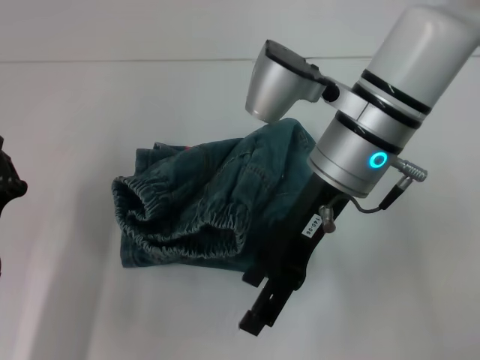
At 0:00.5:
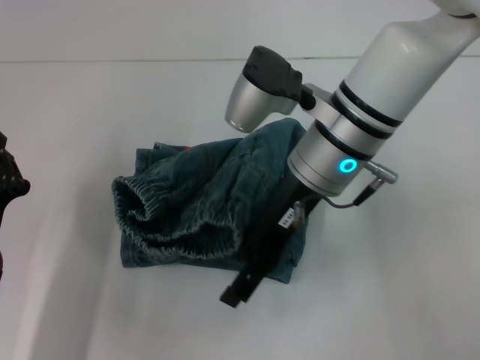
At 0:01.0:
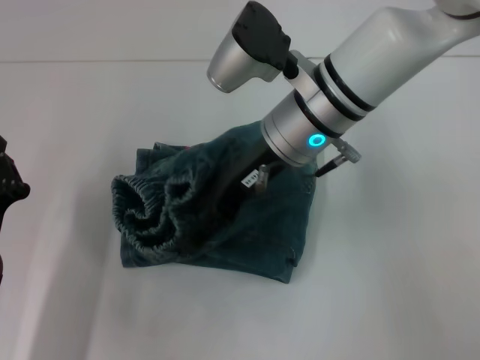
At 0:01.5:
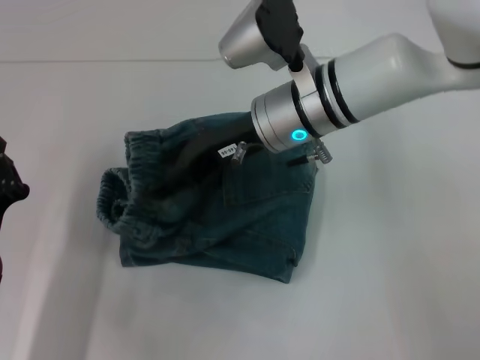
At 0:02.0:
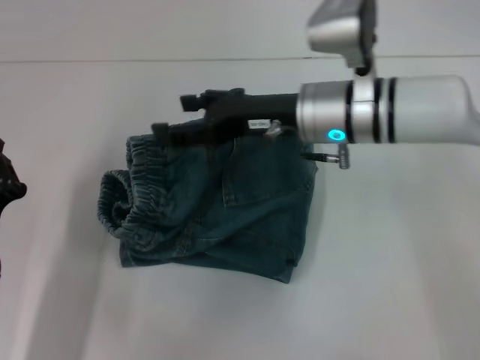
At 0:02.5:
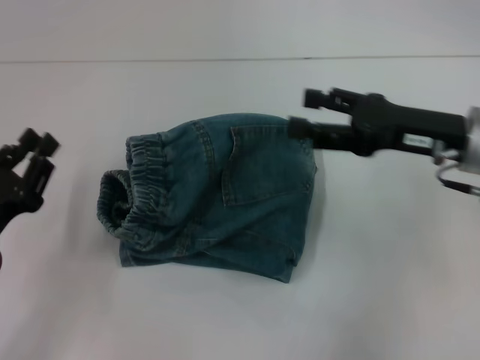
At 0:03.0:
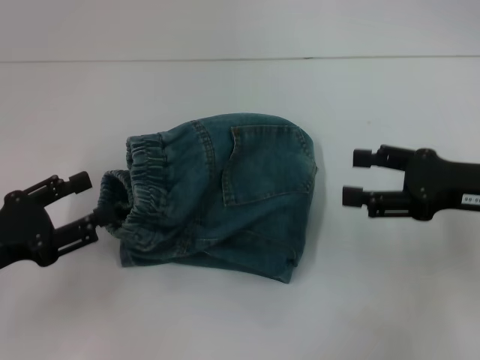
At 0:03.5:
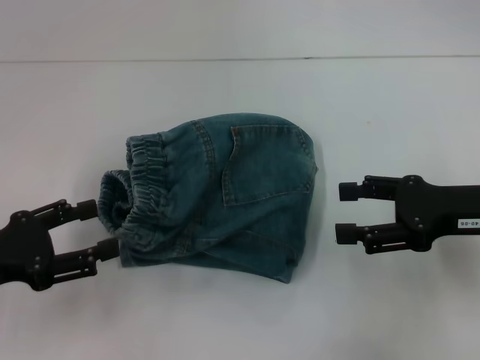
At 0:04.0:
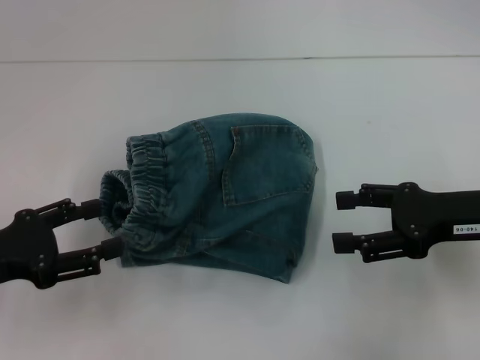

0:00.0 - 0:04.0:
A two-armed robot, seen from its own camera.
0:00.0 - 0:02.0: The right gripper moves downward, about 5 cm.
0:02.0 - 0:04.0: The left gripper moves upward and to the left, about 10 cm, and opens, while the right gripper moves to the right and backward, about 20 cm.
